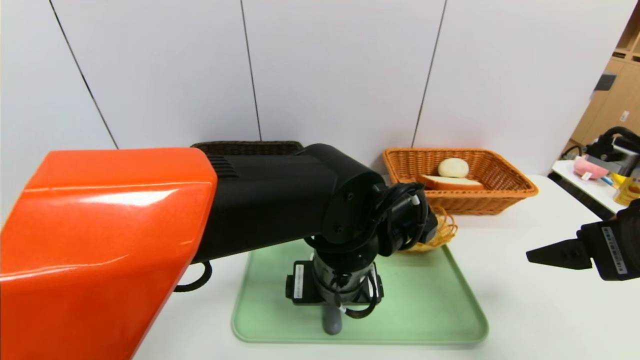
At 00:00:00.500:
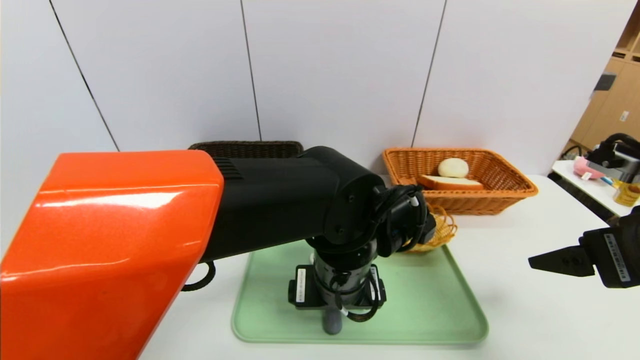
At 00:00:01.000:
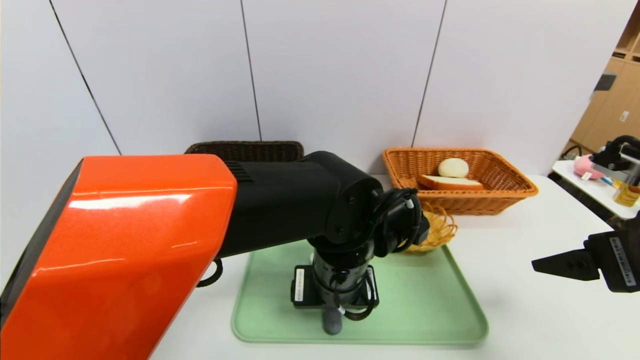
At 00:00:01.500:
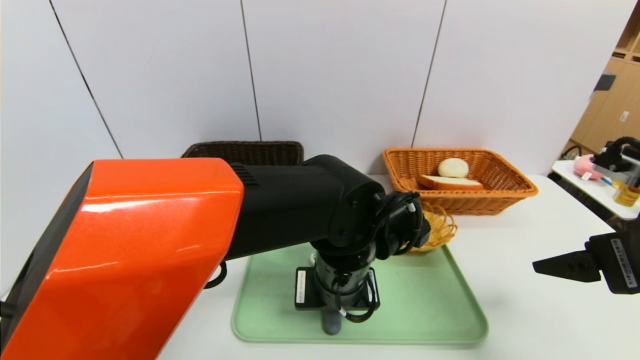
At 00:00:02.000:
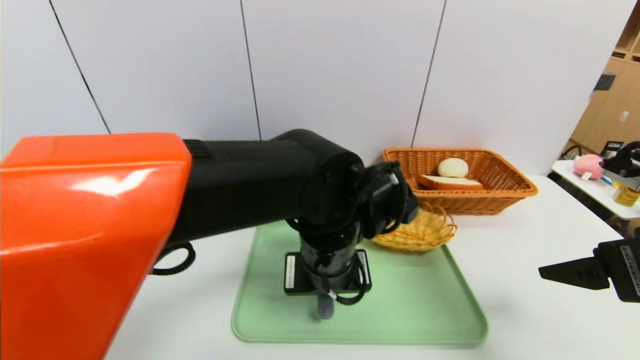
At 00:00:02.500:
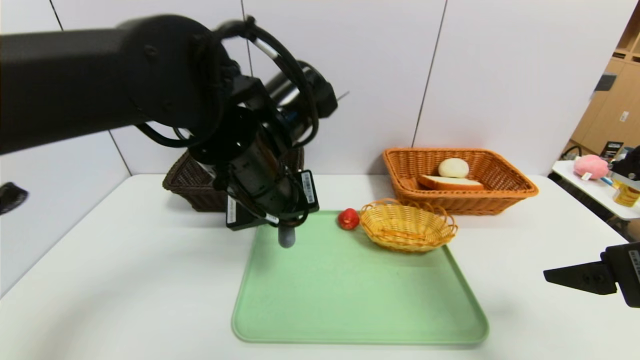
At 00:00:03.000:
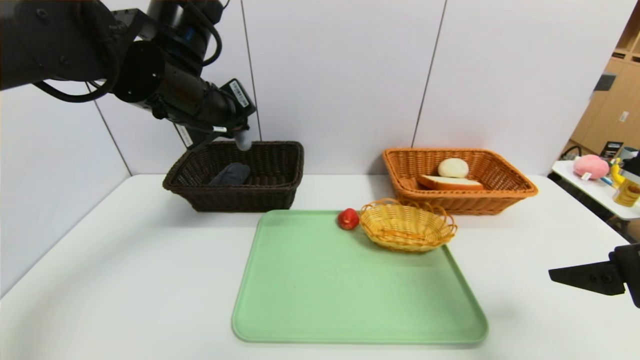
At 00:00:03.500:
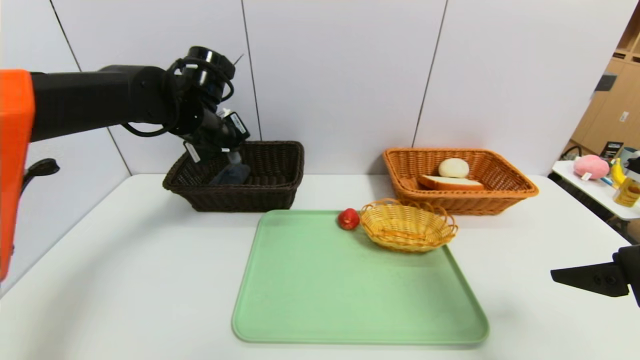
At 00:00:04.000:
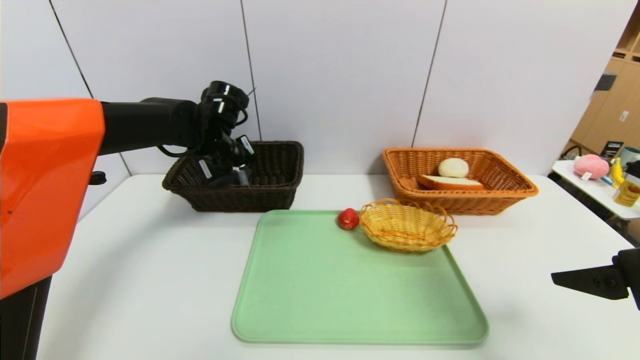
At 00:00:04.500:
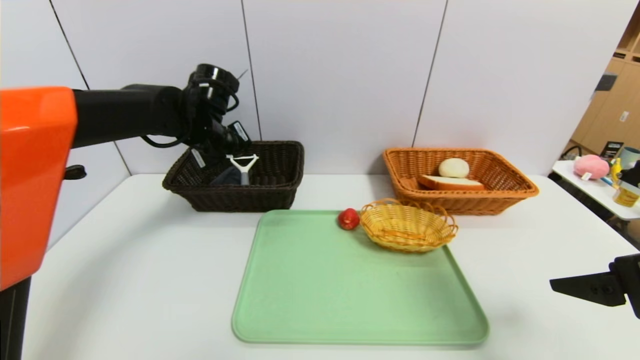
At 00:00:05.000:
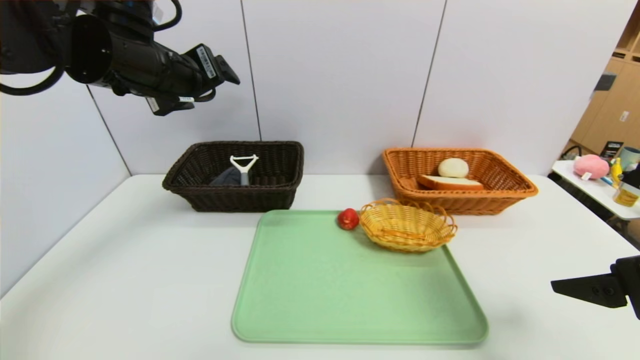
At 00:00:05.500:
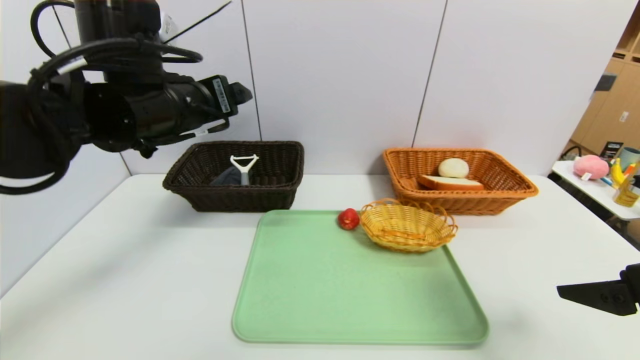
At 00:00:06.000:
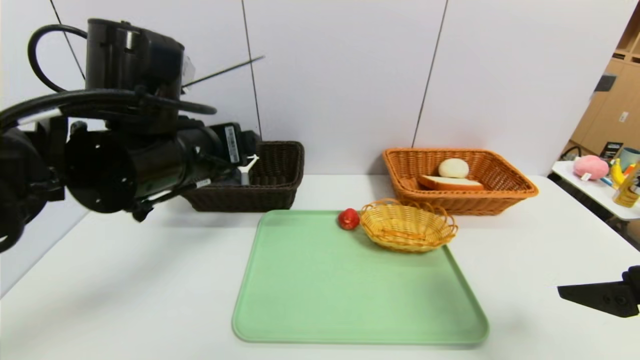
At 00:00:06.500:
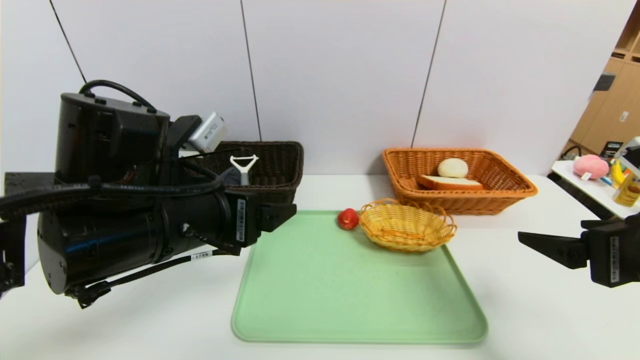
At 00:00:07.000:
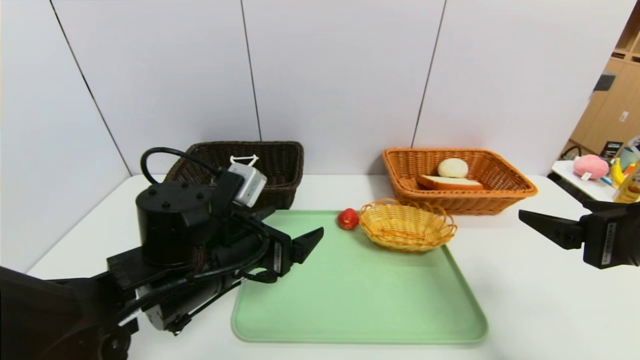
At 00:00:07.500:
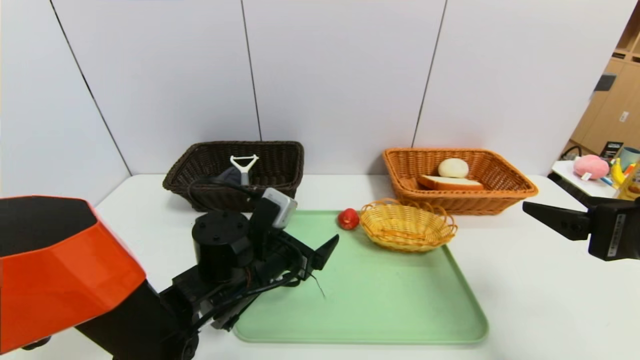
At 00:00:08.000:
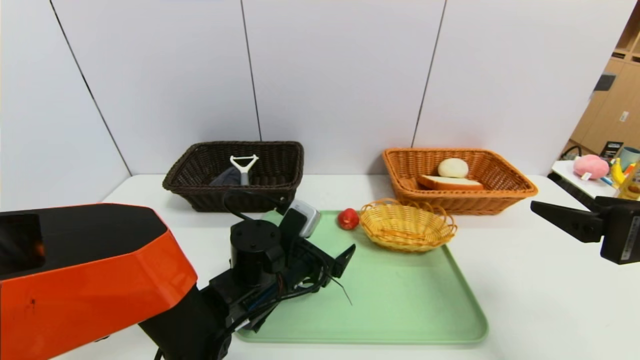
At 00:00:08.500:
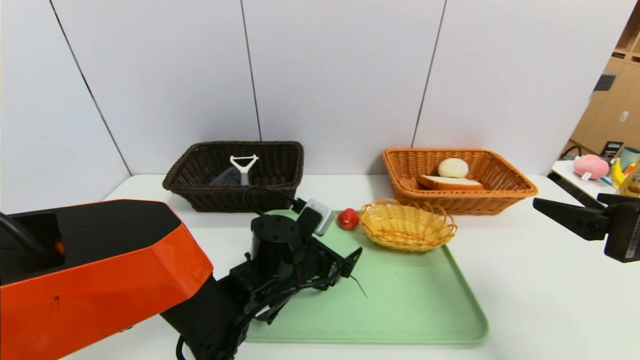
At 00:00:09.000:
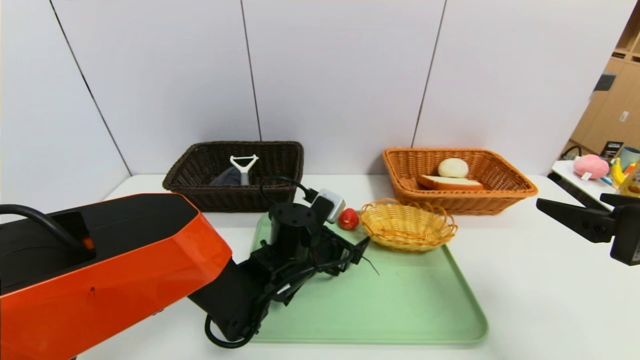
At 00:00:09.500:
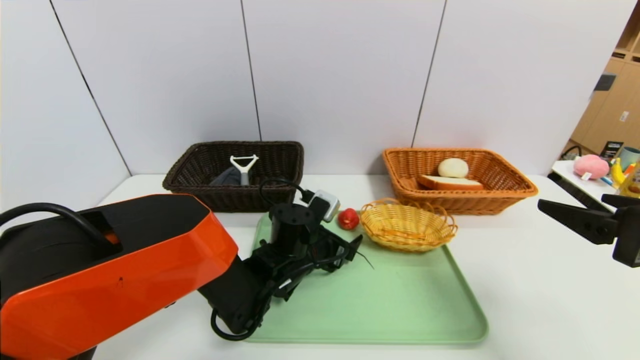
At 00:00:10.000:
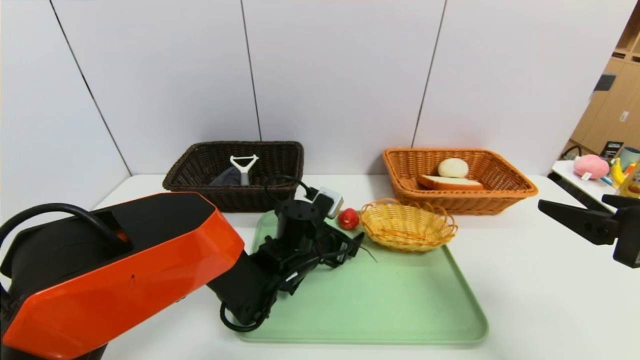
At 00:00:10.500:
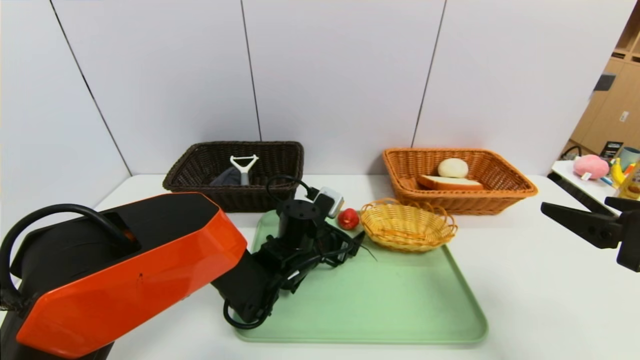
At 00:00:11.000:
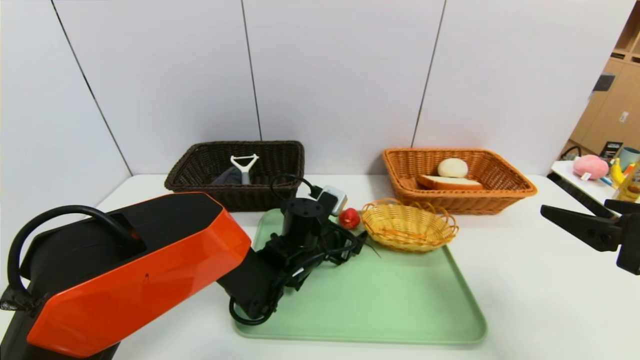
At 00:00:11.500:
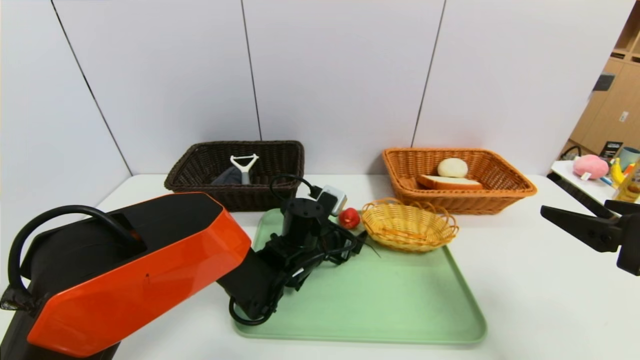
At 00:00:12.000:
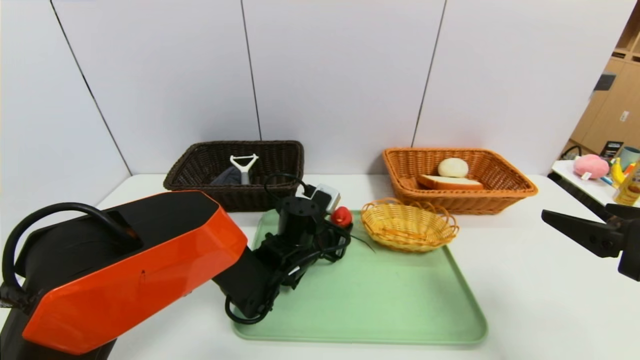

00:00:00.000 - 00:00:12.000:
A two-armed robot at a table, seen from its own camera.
Task of the whole recording: place the food in the right basket with the right gripper, and place the non food items in the left basket with the left gripper.
Step, 00:00:00.000 - 00:00:04.500: Grasp the peeler and put it in the left basket.
00:00:00.000 - 00:00:02.000: The left gripper closes up.
00:00:02.000 - 00:00:04.000: The left gripper moves forward and to the left, about 25 cm.
00:00:04.000 - 00:00:06.000: The left gripper goes roughly 20 cm backward, and opens up.
00:00:06.000 - 00:00:08.000: The left gripper shifts roughly 20 cm downward and to the right.
00:00:08.000 - 00:00:10.000: The left gripper is displaced forward by approximately 5 cm.
00:00:10.000 - 00:00:12.000: The left gripper closes its fingers.

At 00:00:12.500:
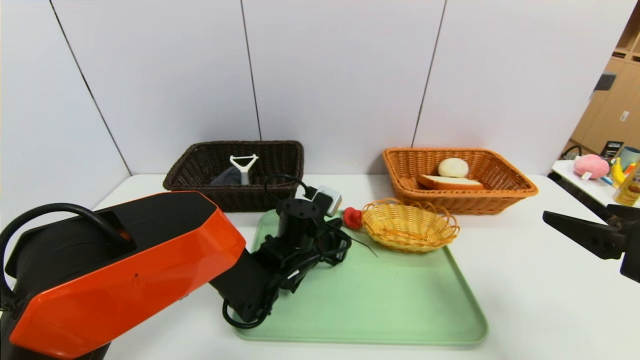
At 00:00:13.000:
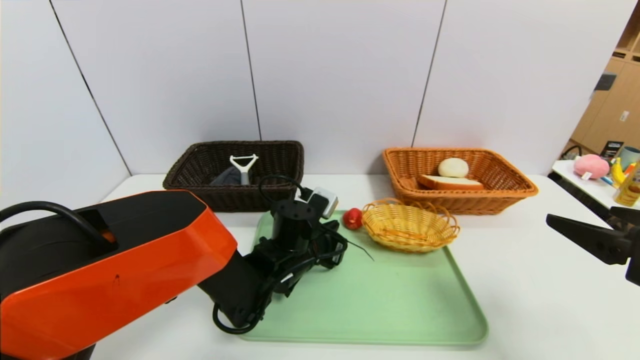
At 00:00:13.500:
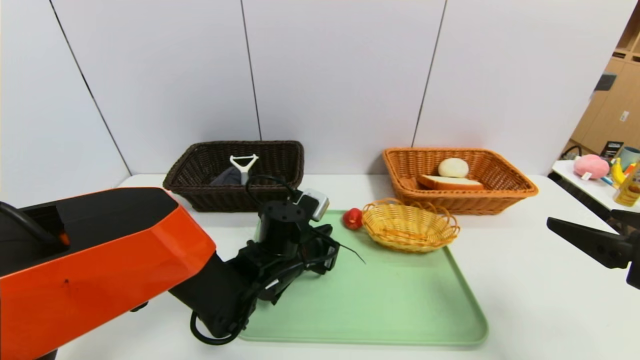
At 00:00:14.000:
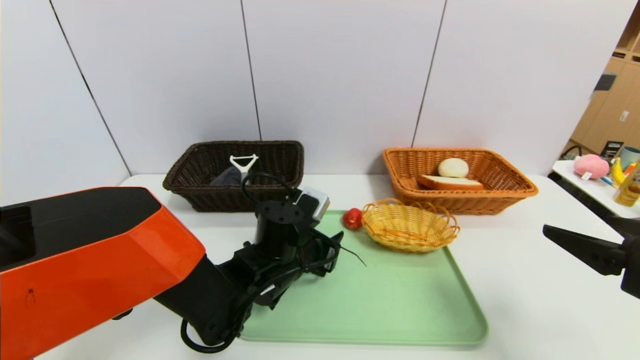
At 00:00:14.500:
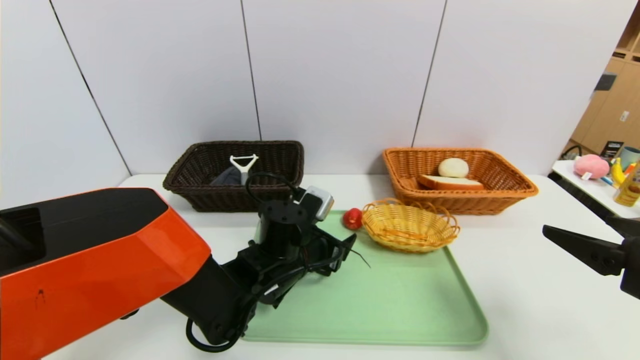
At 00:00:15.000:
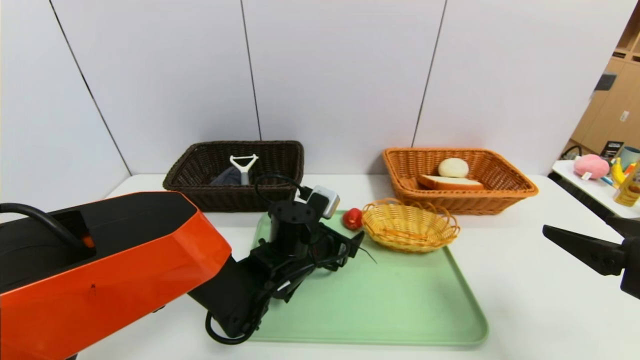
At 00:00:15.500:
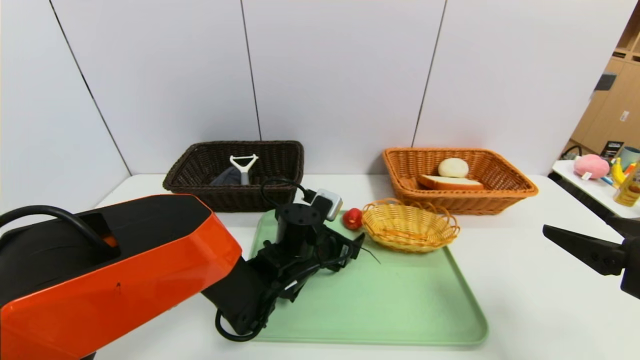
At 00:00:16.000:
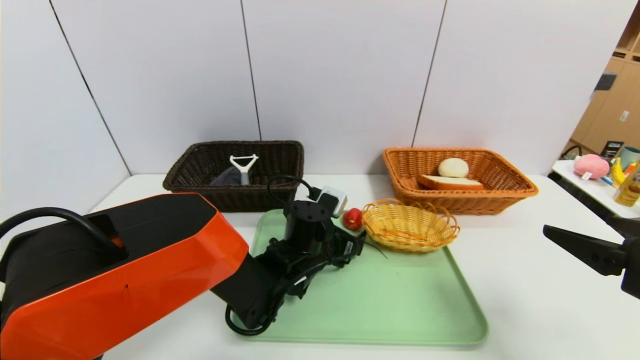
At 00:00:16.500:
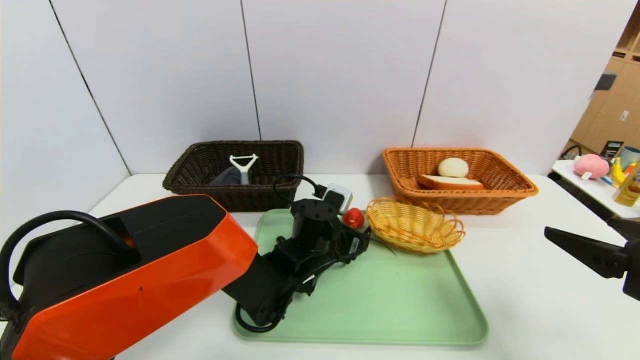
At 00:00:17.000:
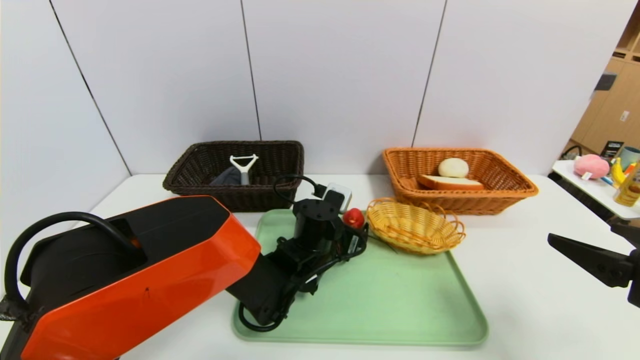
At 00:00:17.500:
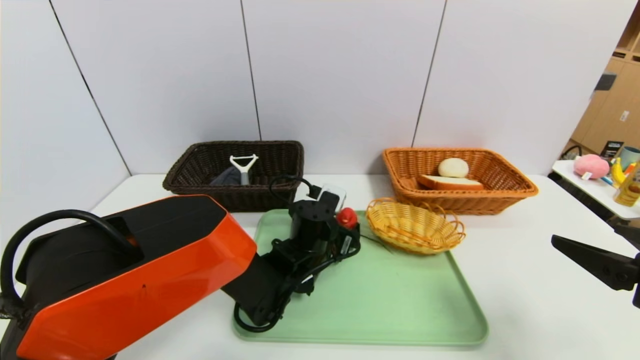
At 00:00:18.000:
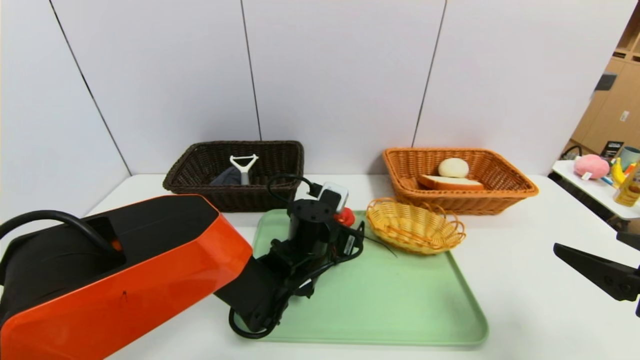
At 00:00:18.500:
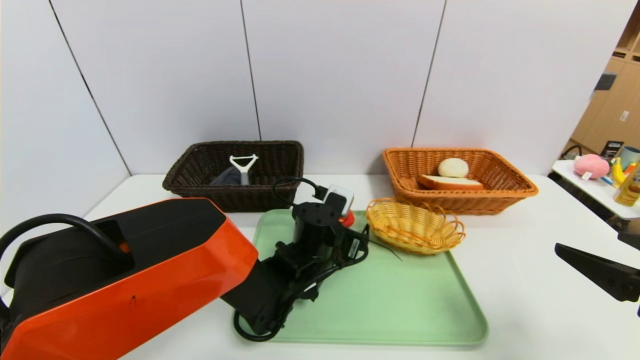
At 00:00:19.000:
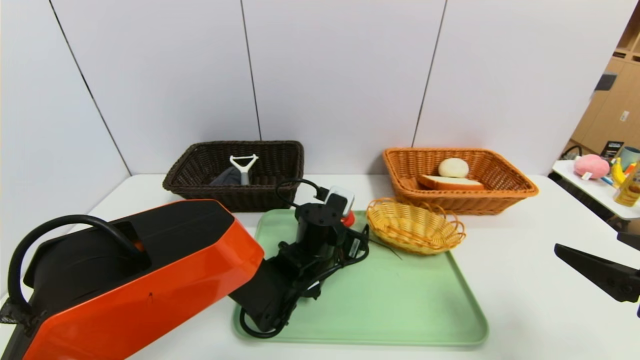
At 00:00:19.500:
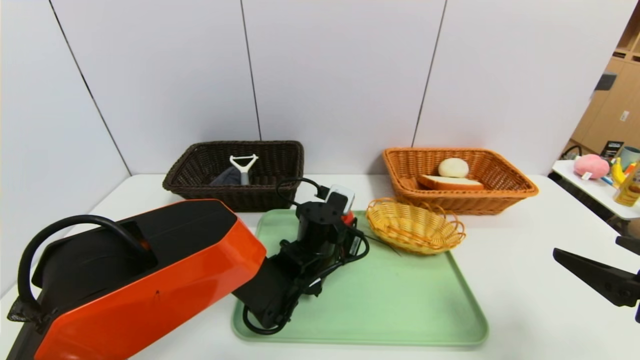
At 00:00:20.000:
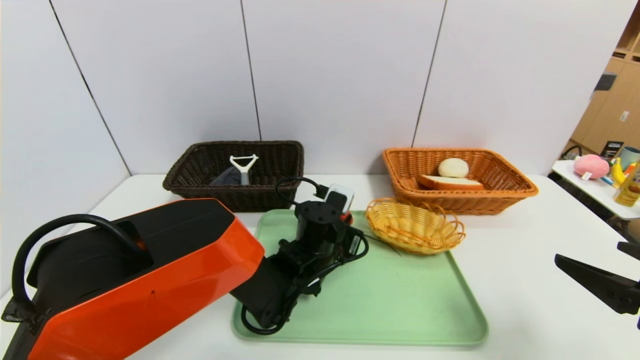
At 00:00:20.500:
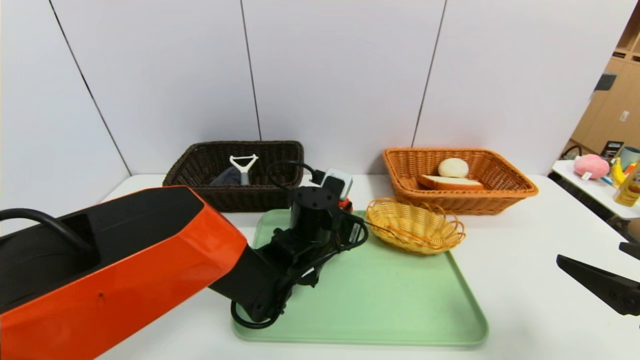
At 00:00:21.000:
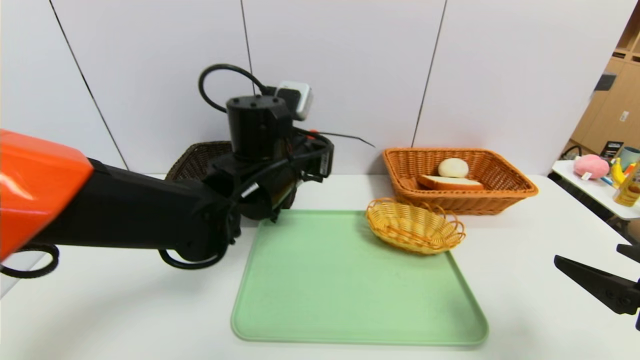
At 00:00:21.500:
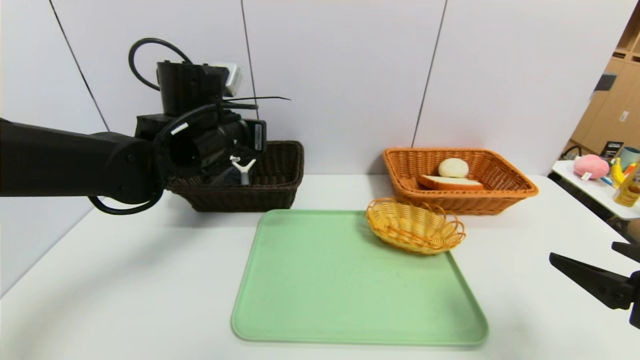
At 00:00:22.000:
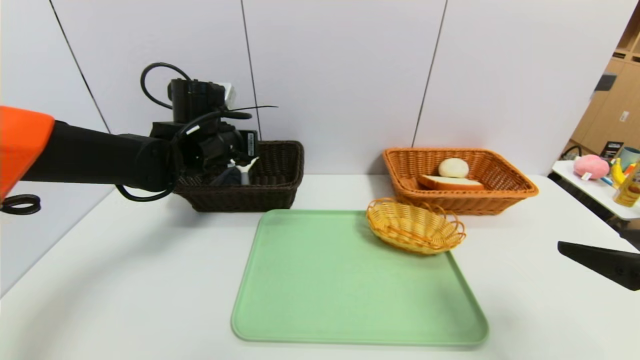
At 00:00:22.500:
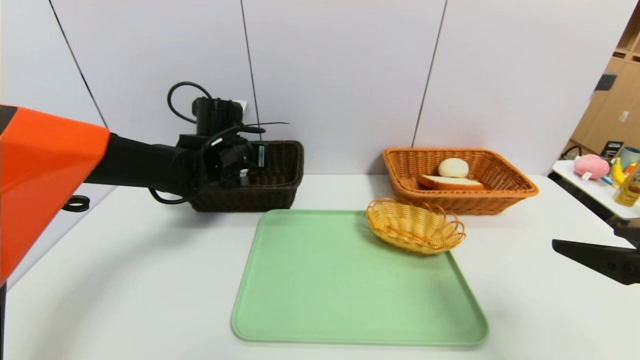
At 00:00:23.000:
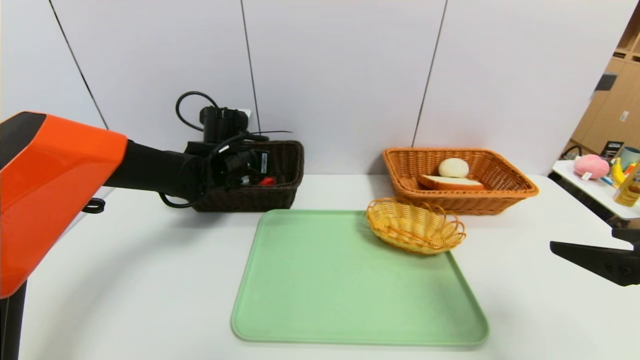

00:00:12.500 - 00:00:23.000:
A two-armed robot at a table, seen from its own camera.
Task of the whole recording: place the food in the right basket with the right gripper, and place the non food items in the left basket with the left gripper.
00:00:12.500 - 00:00:14.500: The left gripper opens its fingers.
00:00:14.500 - 00:00:16.500: The left gripper shifts by some 5 cm.
00:00:16.500 - 00:00:19.000: The grippers make only small movements.
00:00:19.000 - 00:00:21.000: The left gripper moves upward, approximately 15 cm, and closes.
00:00:21.000 - 00:00:23.000: The left gripper shifts approximately 15 cm forward and to the left, and opens.
